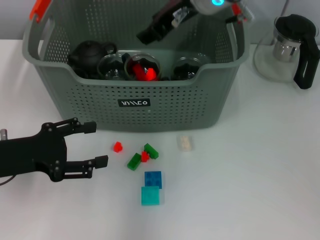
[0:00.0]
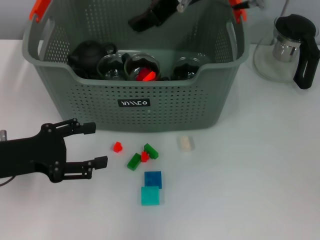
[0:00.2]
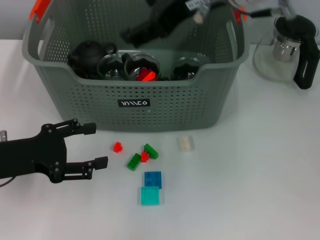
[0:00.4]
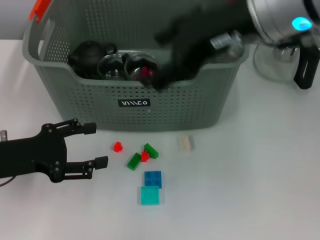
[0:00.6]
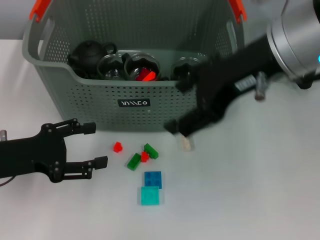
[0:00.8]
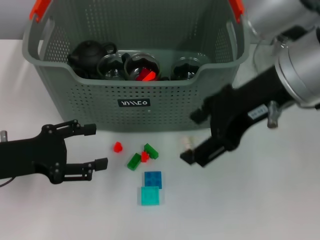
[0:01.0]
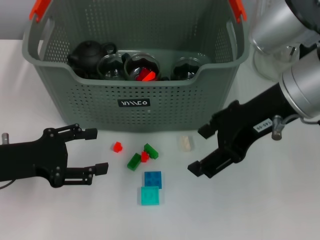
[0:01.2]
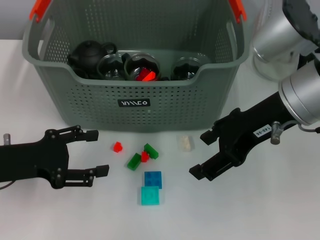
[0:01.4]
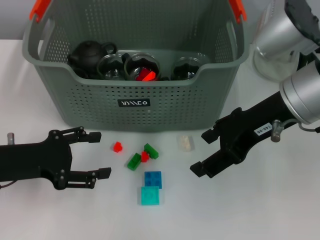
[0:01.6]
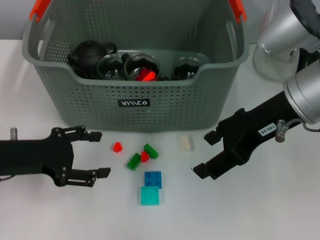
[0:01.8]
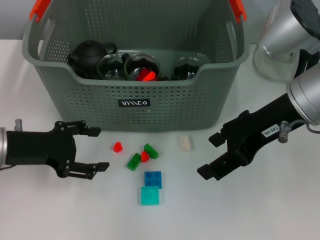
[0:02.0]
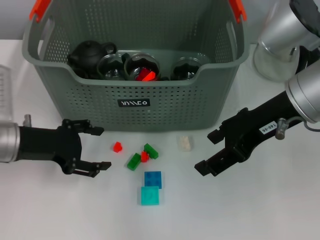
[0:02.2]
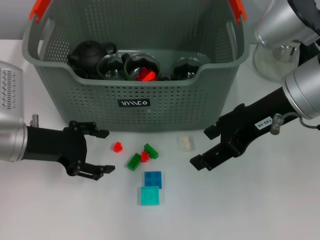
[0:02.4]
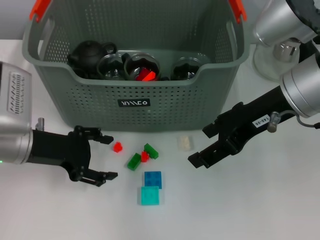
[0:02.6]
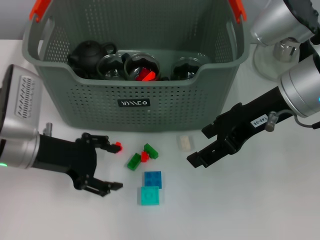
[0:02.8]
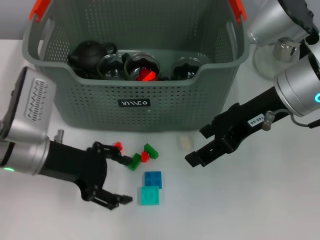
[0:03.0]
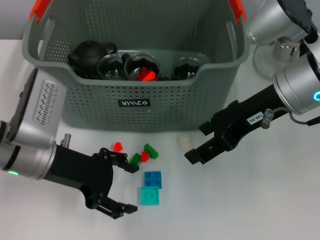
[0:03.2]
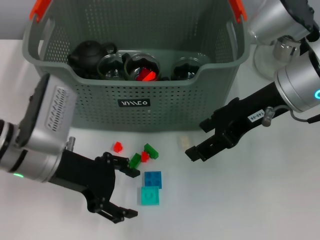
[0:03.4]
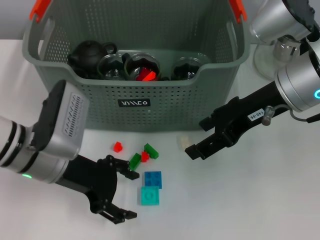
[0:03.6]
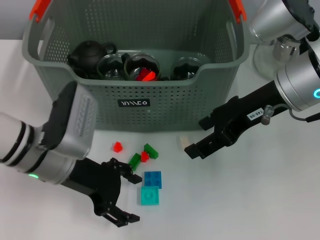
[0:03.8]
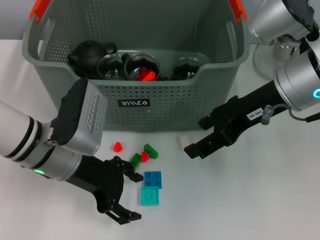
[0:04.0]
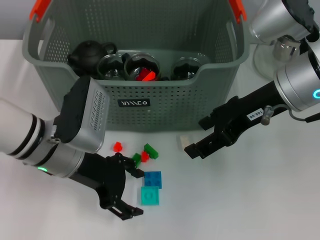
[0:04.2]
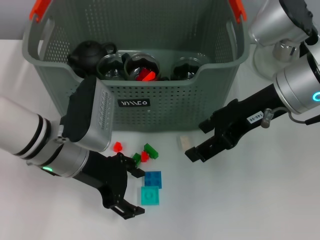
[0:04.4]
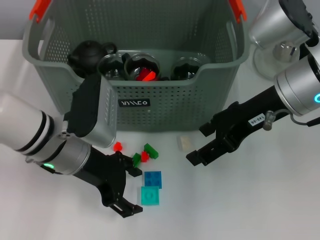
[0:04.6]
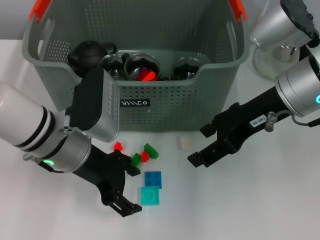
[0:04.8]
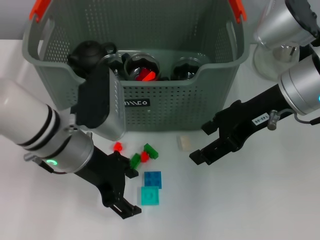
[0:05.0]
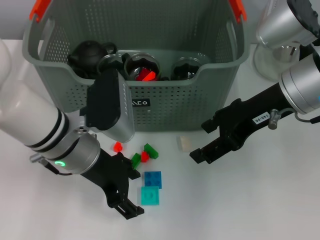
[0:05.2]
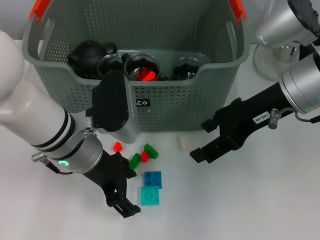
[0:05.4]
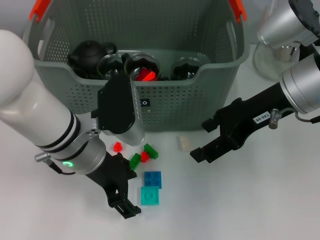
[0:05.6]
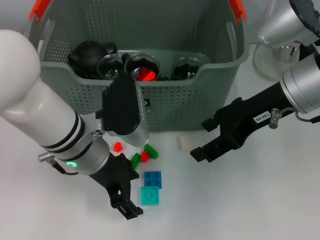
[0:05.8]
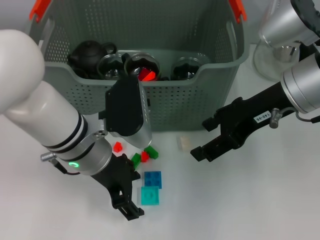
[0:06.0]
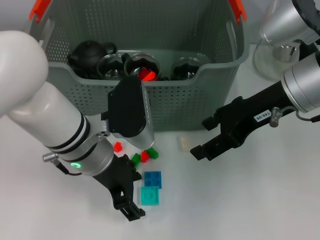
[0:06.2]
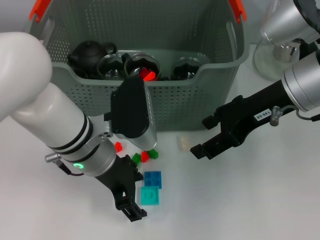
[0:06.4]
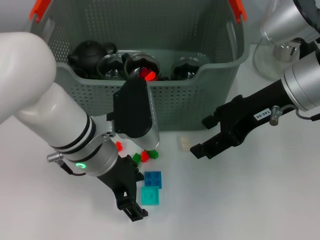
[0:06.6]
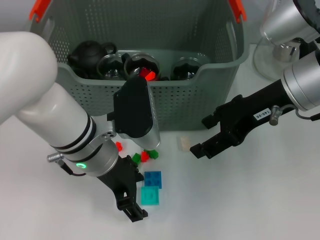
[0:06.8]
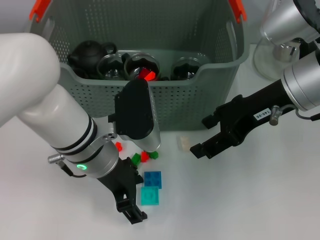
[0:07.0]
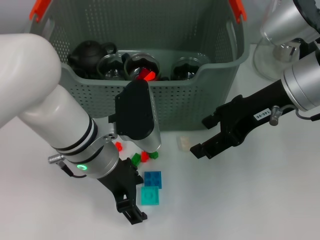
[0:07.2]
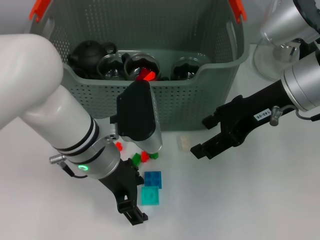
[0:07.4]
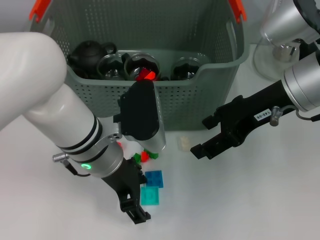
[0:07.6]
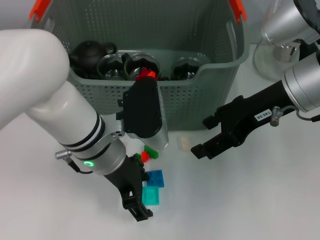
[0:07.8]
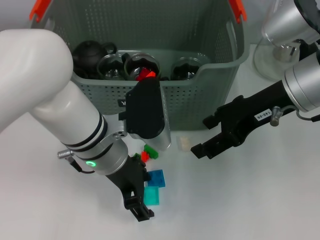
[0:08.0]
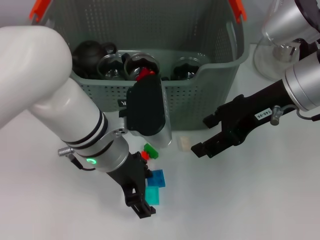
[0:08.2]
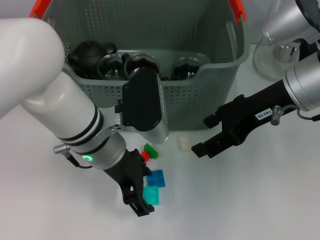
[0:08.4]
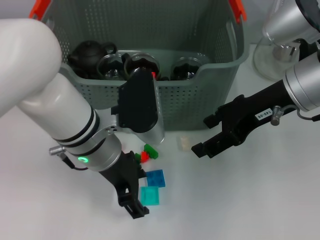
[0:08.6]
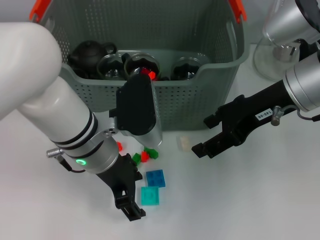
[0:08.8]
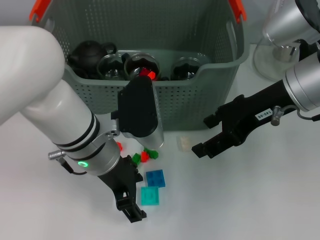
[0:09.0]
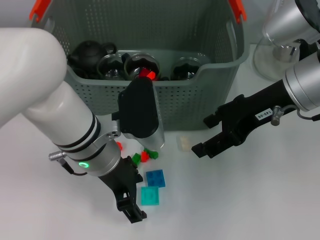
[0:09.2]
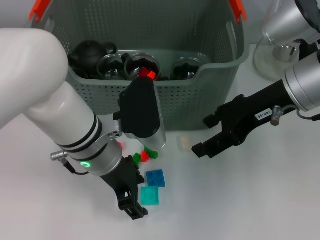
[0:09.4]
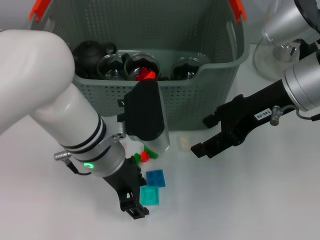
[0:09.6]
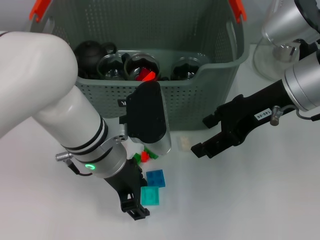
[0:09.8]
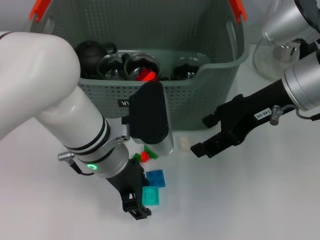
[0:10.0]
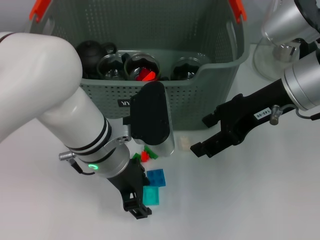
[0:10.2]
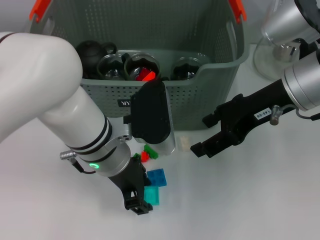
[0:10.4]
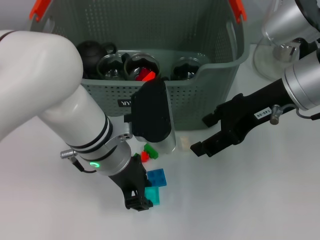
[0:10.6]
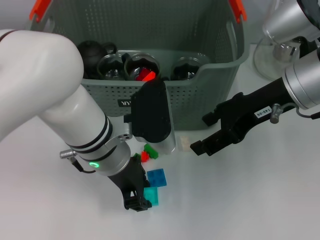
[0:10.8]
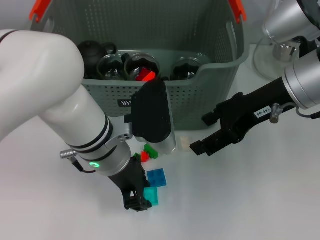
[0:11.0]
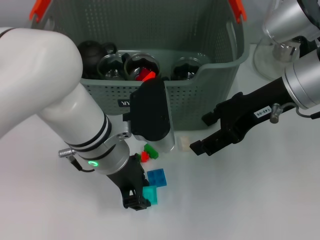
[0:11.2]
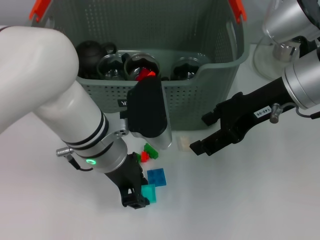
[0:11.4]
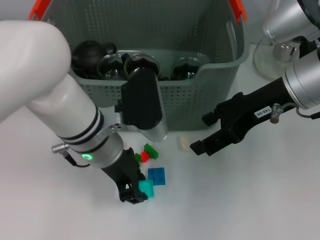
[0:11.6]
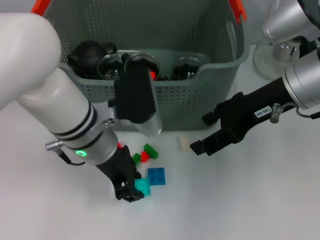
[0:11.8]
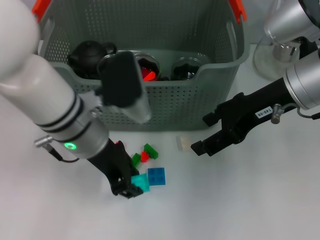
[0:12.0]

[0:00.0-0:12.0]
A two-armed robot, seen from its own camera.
Task of the whole recording: pick up the teacup on the table and place it into the storage bin, pick up the block on the table and place it into the storage bin.
Step, 0:00.2 to 0:10.8: Grasp the light blue block with left gripper.
0:00.0 to 0:01.6: The right gripper is displaced to the right and backward by some 15 cm, and opens.
0:01.6 to 0:03.0: The left gripper moves to the right, approximately 5 cm.
0:03.0 to 0:04.4: The left gripper goes some 5 cm to the right.
0:04.4 to 0:06.0: The grippers make only small movements.
0:06.0 to 0:10.4: The grippers move only a little.

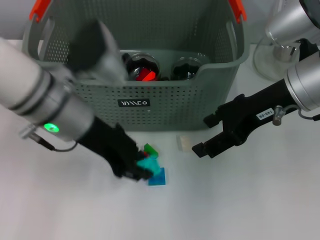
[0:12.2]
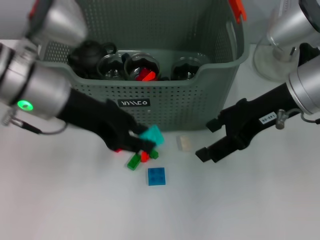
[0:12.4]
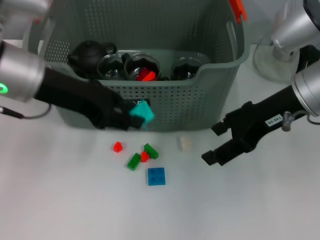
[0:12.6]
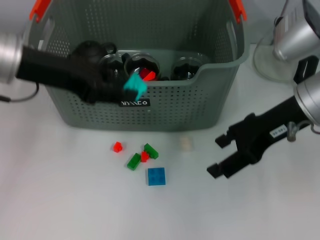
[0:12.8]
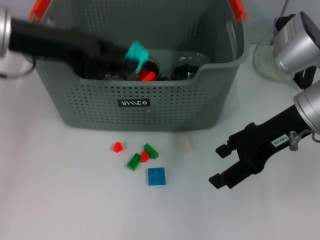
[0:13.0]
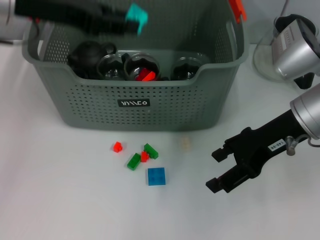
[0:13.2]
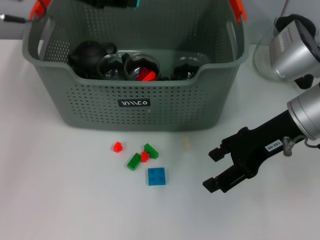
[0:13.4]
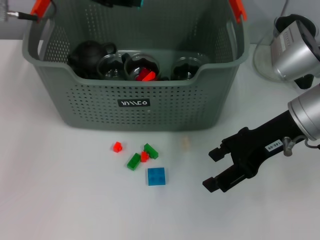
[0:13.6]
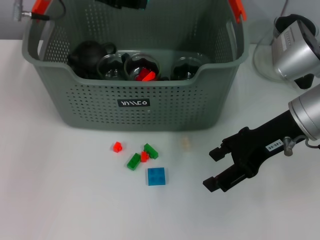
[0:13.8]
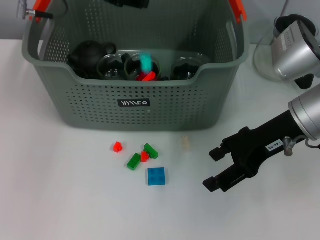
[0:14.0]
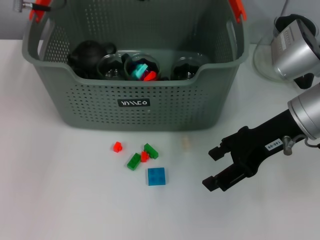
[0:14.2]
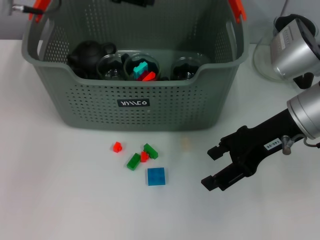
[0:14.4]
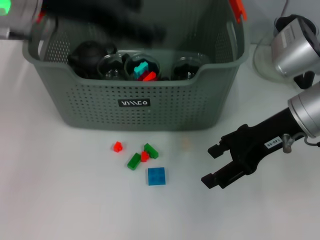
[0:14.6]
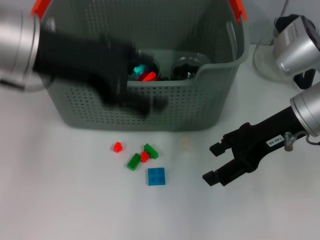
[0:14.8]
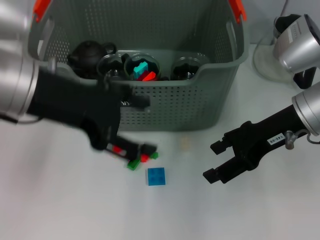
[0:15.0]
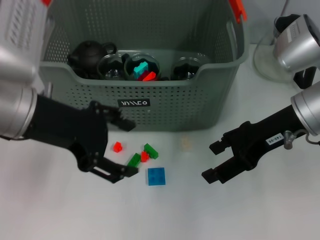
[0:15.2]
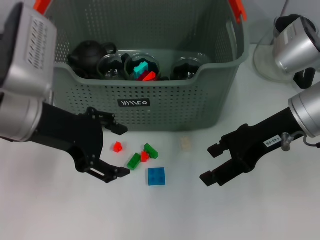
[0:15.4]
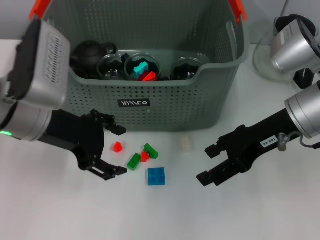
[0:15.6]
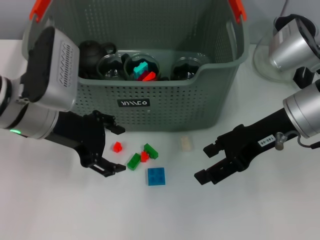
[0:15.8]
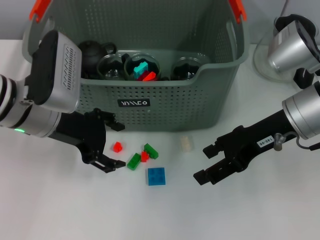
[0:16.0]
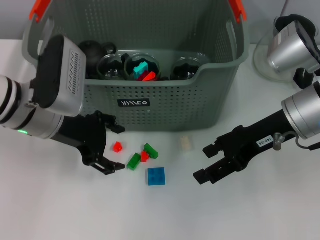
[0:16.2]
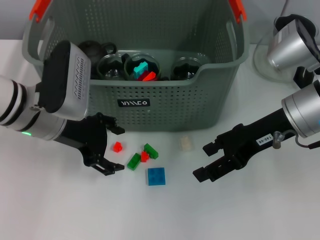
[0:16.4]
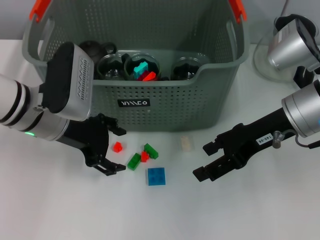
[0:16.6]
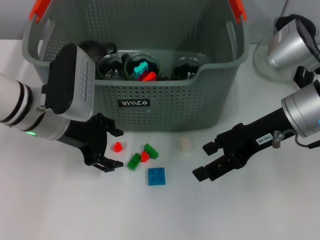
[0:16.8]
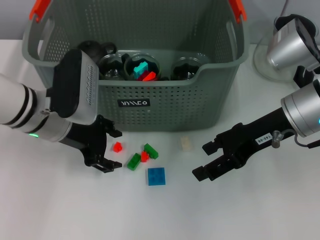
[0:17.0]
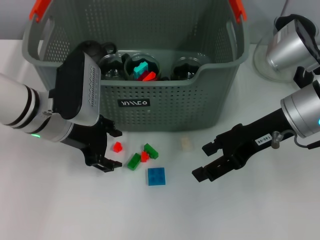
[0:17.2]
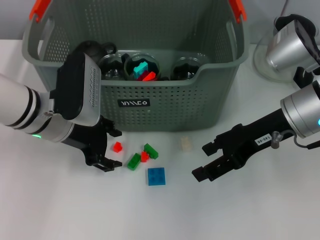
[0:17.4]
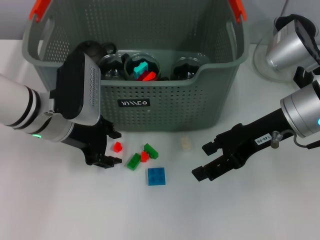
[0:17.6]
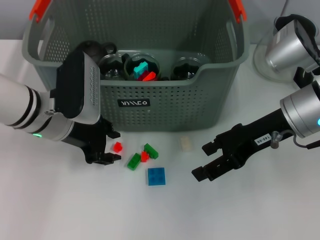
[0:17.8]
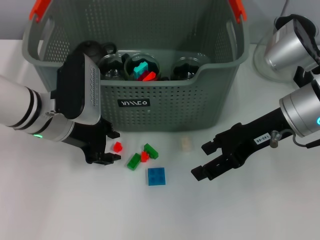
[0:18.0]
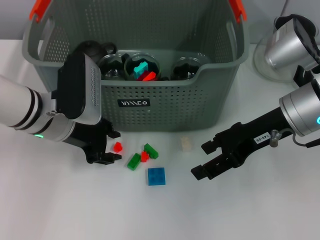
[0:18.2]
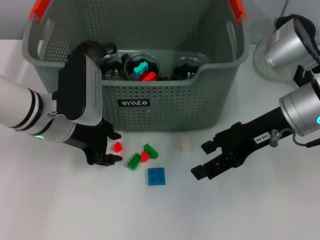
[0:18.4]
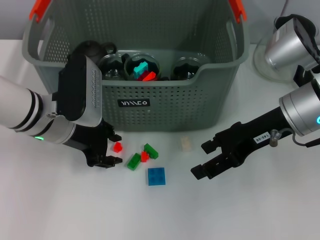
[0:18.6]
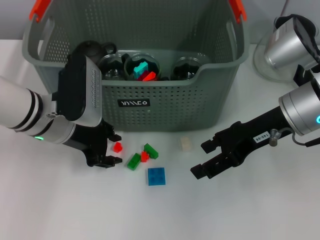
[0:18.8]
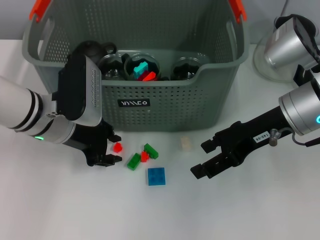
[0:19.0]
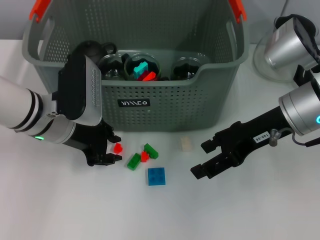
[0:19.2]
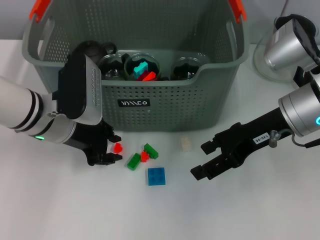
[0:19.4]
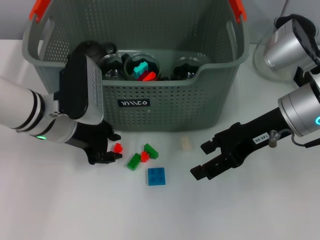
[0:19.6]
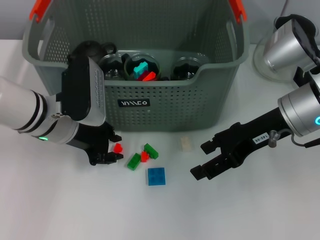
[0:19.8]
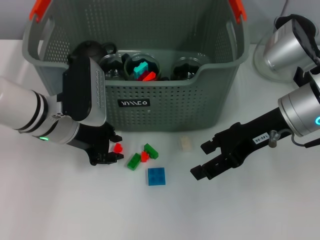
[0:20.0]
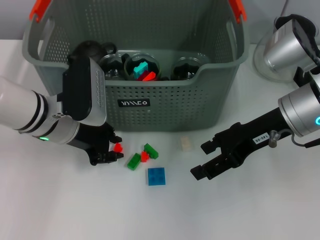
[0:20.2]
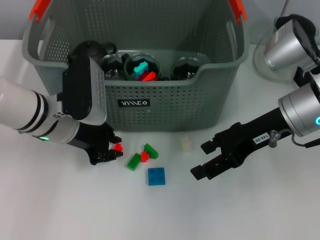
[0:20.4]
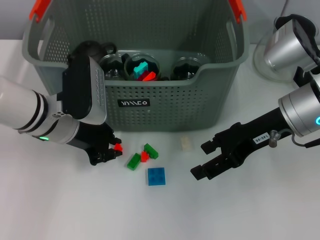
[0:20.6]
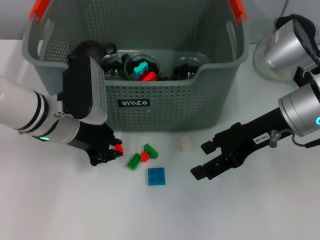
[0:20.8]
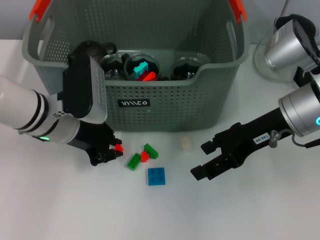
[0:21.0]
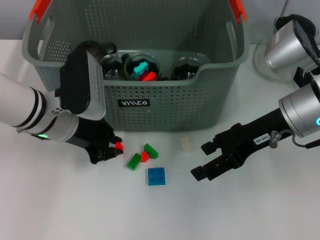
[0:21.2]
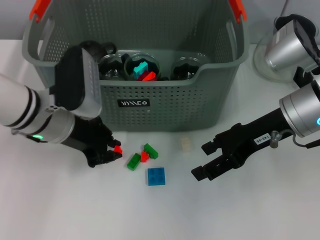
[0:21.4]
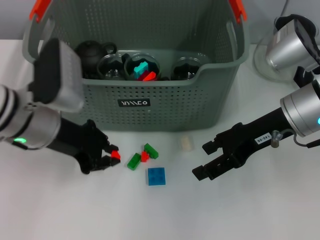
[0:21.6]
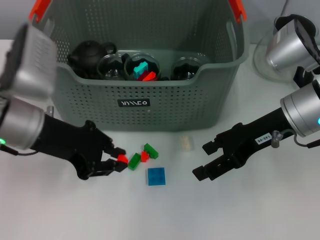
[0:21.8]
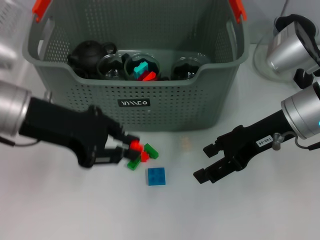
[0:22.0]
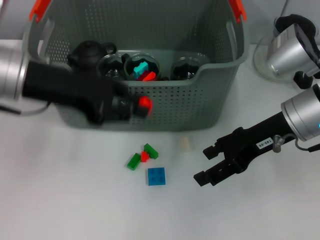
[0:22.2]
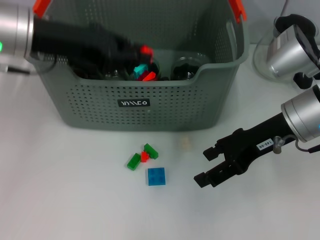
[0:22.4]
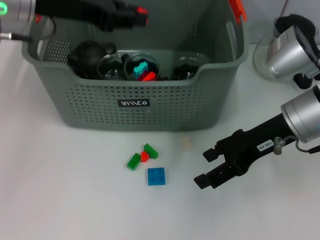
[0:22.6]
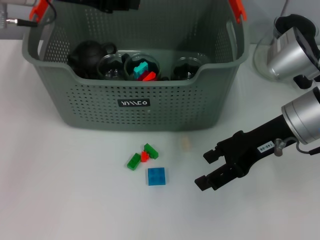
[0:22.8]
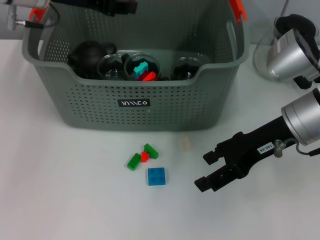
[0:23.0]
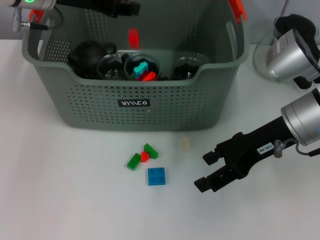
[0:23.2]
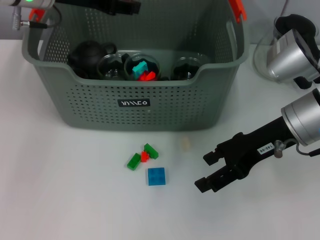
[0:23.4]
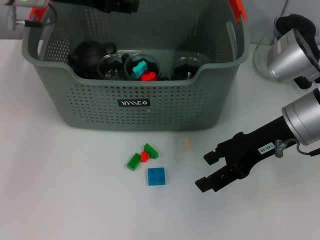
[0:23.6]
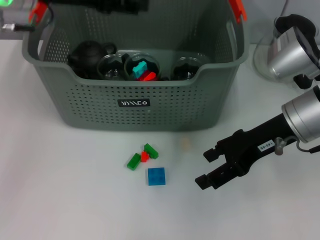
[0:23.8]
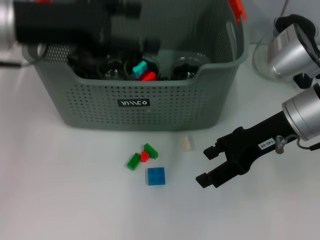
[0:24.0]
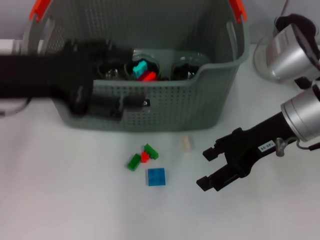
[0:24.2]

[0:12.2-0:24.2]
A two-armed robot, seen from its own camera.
Task of the whole recording: pick up the teacup on the table and place it into the storage bin, pick up the block on the table and place it into the storage bin.
Step, 0:12.2 to 0:14.2: Place the light blue block in the storage box with left gripper.
Step, 0:14.4 to 0:20.8: Grasp the orange block with left gripper.
Step, 0:21.0 to 0:23.6: Place the orange block in the storage box with left gripper.
0:12.2 to 0:13.8: The left gripper moves forward and upward, approximately 15 cm.
0:13.8 to 0:15.2: The left gripper heads backward, covering roughly 15 cm, and opens up.
0:15.2 to 0:16.6: The left gripper heads downward and forward, covering some 10 cm.
0:16.6 to 0:18.2: The left gripper closes up.
0:18.2 to 0:21.2: Neither gripper changes place.
0:21.2 to 0:22.6: The left gripper is displaced upward by about 15 cm.
0:22.6 to 0:24.2: The left gripper goes about 10 cm backward, and opens its fingers.
